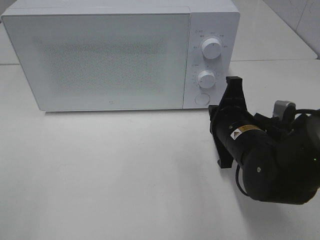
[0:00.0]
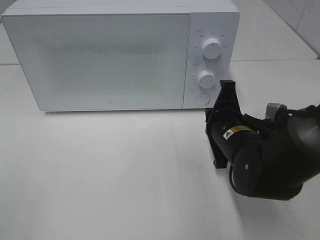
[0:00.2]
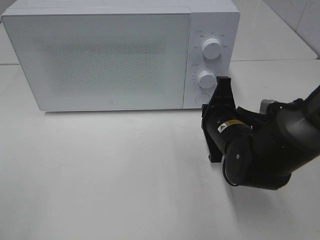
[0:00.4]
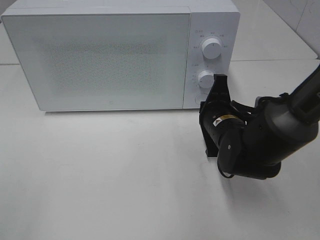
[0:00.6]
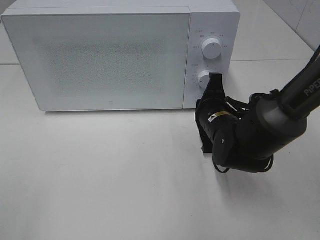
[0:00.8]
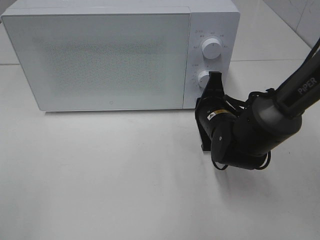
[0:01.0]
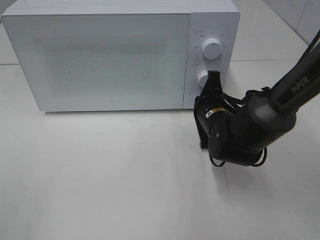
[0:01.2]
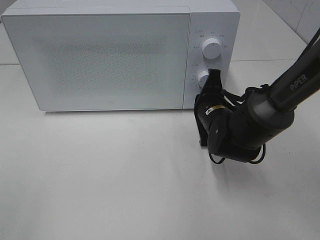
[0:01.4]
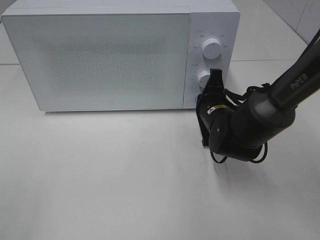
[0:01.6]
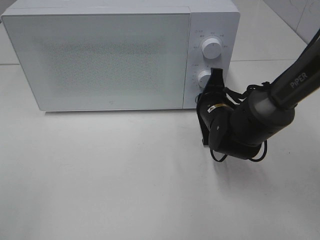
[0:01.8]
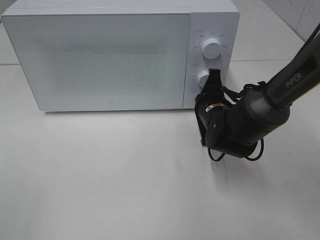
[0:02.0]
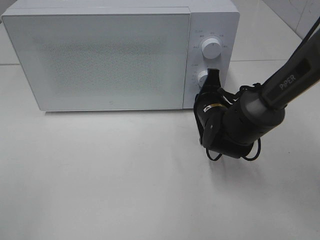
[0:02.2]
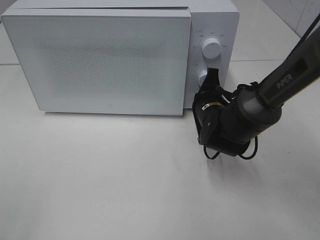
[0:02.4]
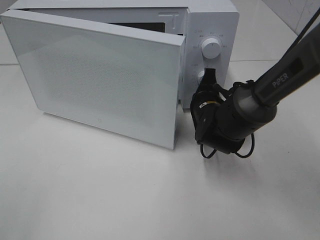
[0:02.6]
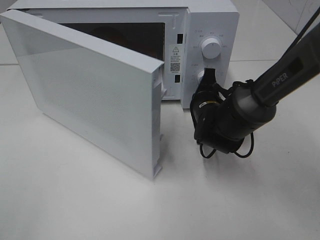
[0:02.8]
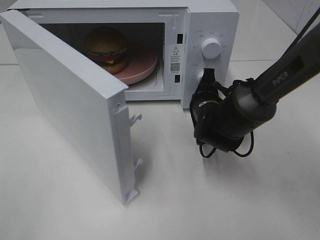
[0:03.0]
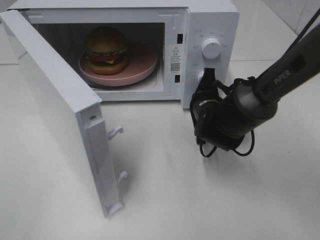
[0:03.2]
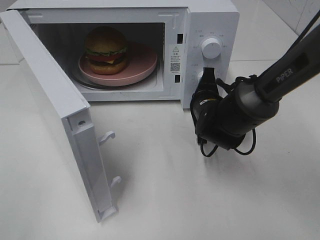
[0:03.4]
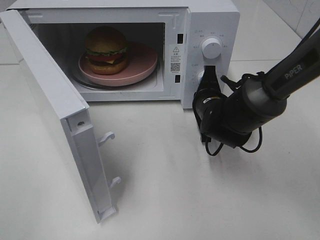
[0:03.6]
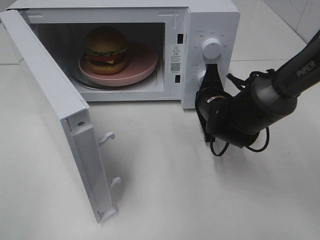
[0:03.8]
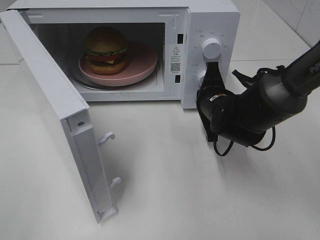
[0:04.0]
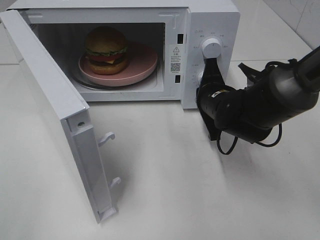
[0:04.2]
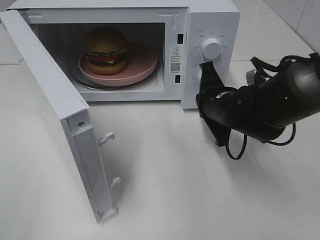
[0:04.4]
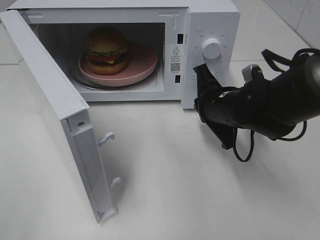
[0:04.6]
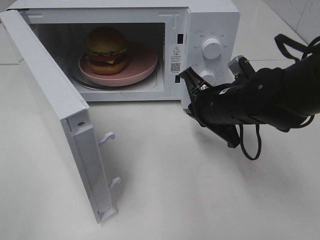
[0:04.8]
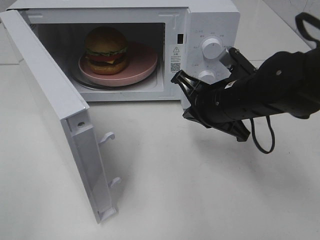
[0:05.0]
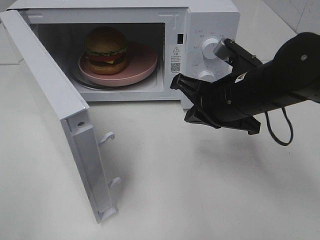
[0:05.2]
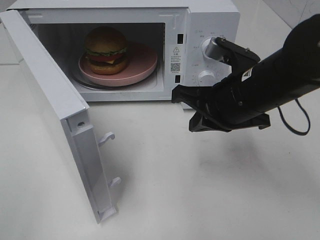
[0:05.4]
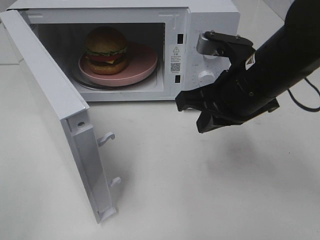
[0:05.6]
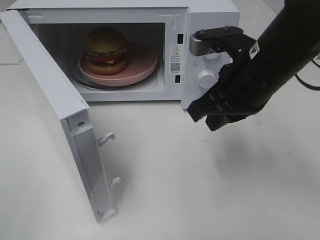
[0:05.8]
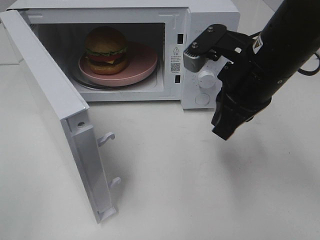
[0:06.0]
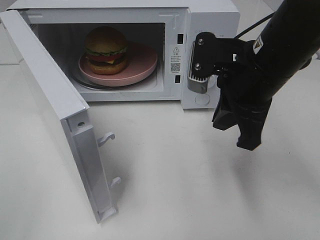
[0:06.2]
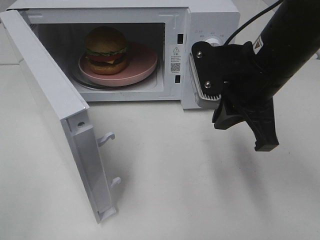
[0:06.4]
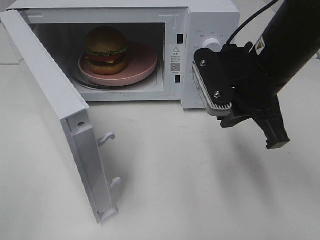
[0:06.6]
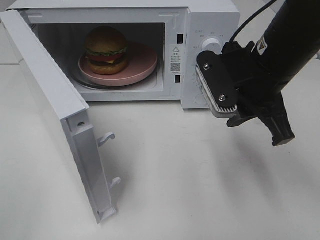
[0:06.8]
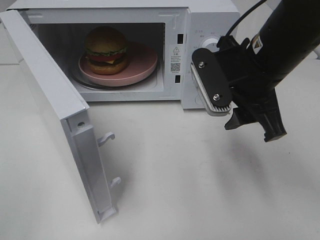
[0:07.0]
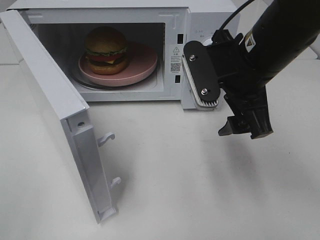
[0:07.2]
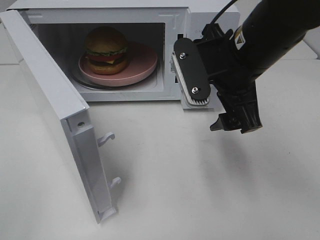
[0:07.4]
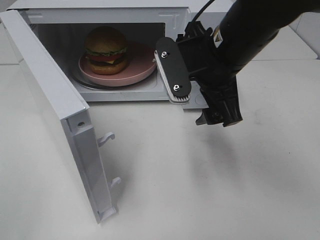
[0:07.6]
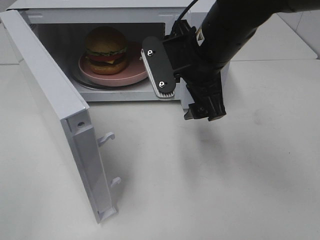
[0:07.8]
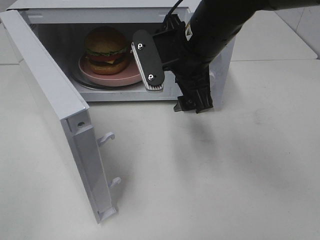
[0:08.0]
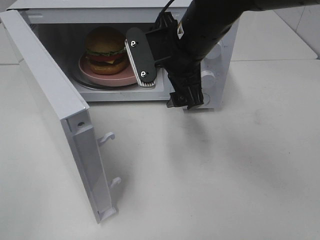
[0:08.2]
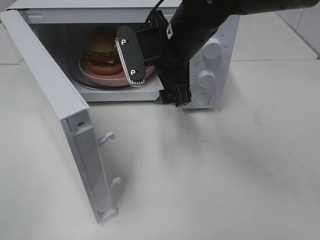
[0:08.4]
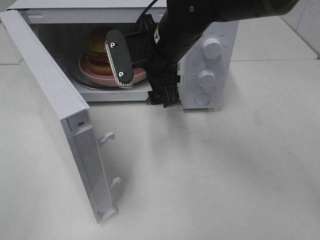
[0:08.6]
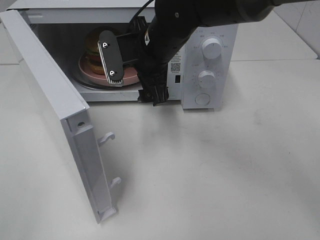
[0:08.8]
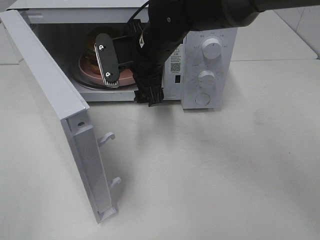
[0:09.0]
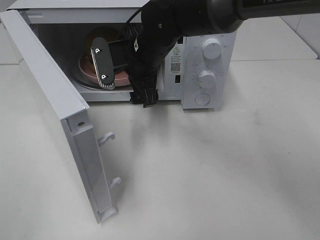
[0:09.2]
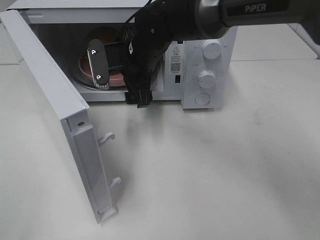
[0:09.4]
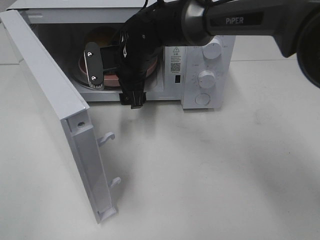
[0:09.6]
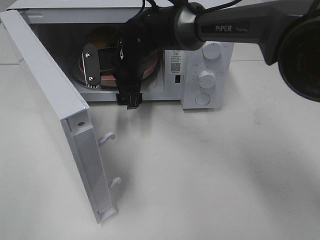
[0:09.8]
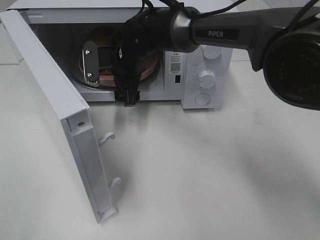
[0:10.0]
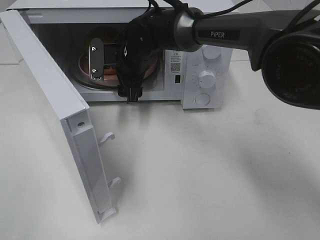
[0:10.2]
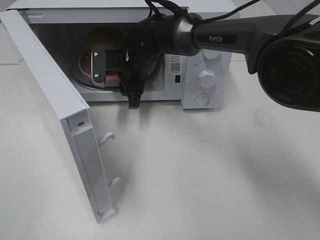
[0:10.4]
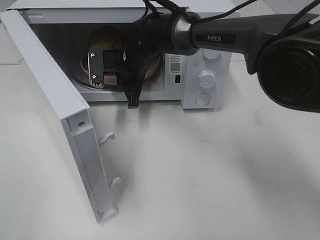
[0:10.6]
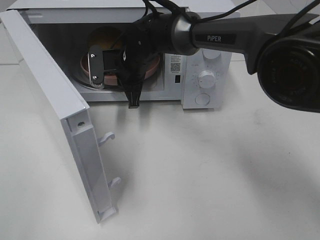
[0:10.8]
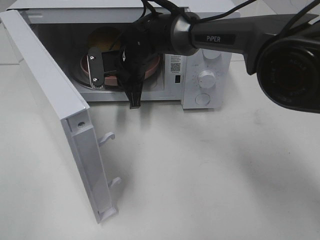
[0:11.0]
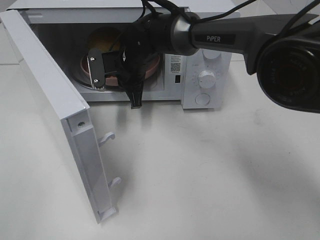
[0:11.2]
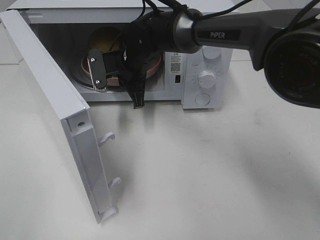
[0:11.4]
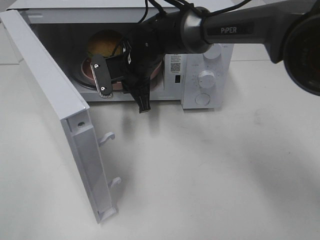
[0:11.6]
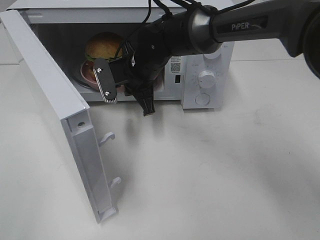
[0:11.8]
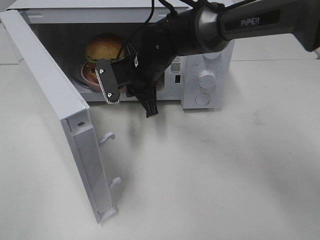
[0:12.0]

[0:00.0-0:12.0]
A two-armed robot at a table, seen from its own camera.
Task of the whole recording: Heat the burger.
Step, 0:00.0 to 0:04.0: Right hand: press the switch.
Step, 0:04.2 to 0:10.8: Right hand: grab the plate with the hamburger.
0:00.0 to 0:01.6: The right gripper moves forward, some 10 cm.
0:03.0 to 0:04.4: The right gripper ends up approximately 5 cm from where it was.
0:04.4 to 0:06.0: The right gripper travels upward and backward by some 15 cm.
0:06.0 to 0:07.6: The right gripper ends up approximately 5 cm from where it was, and opens.
0:07.6 to 0:09.0: The right gripper heads to the left and forward, covering some 15 cm.
0:09.0 to 0:10.4: The right gripper is displaced forward and downward by some 10 cm, and closes.
0:10.4 to 0:12.0: The right gripper shifts by some 5 cm.

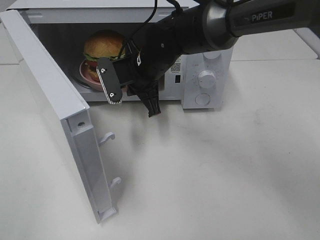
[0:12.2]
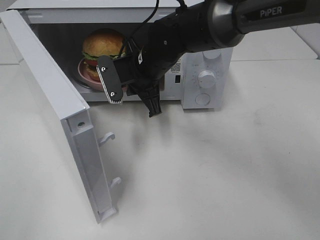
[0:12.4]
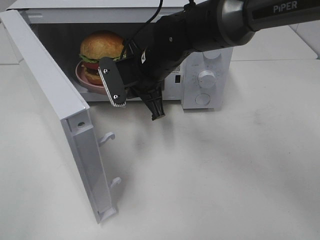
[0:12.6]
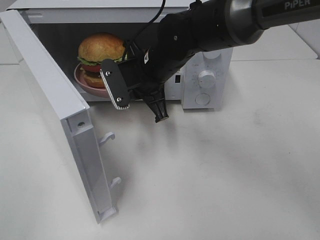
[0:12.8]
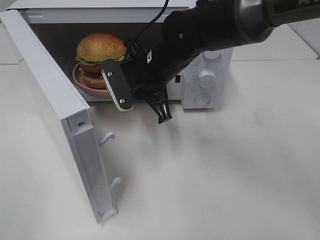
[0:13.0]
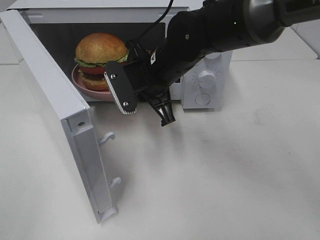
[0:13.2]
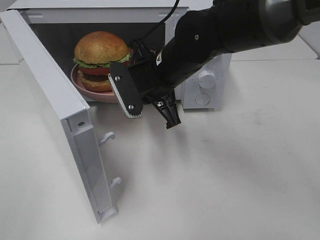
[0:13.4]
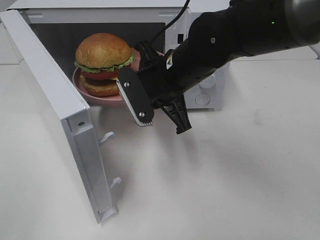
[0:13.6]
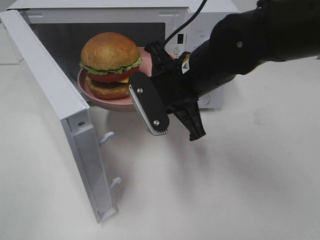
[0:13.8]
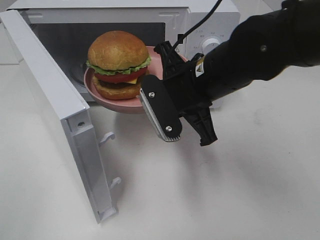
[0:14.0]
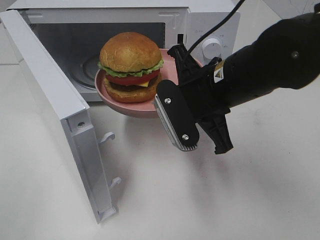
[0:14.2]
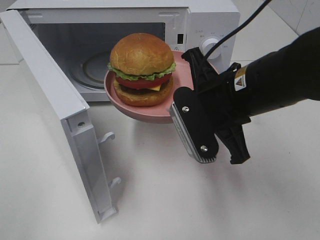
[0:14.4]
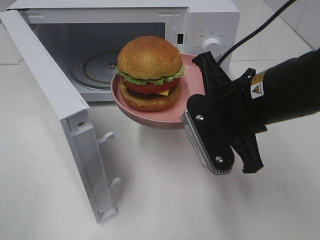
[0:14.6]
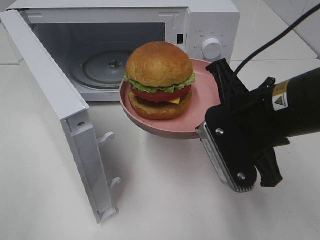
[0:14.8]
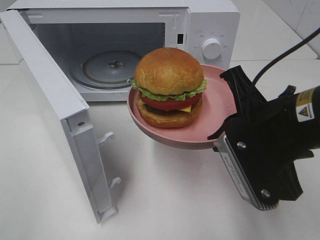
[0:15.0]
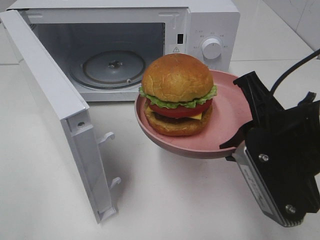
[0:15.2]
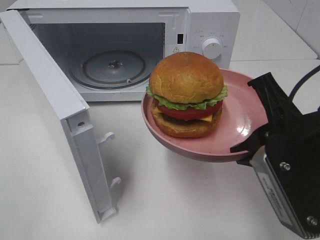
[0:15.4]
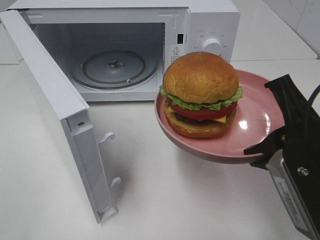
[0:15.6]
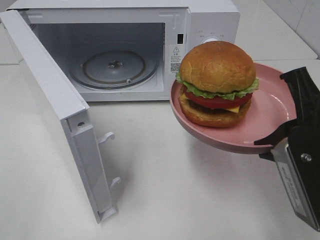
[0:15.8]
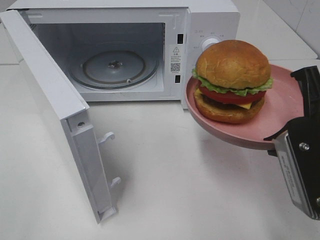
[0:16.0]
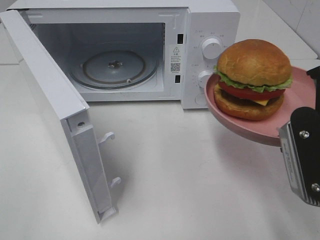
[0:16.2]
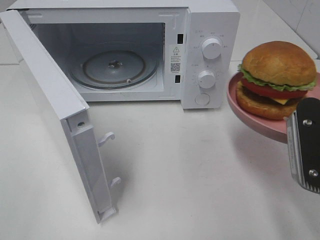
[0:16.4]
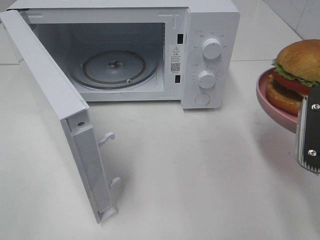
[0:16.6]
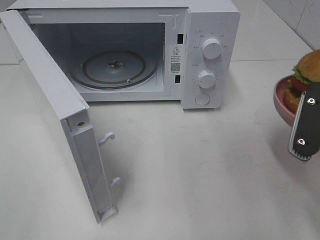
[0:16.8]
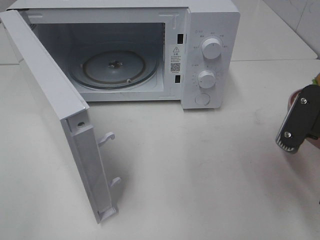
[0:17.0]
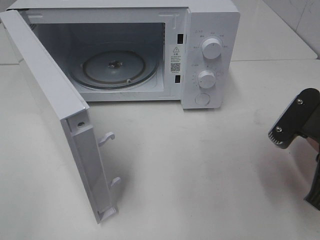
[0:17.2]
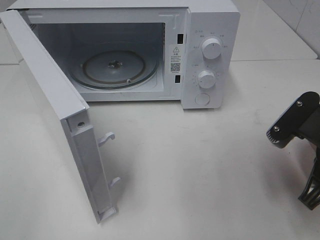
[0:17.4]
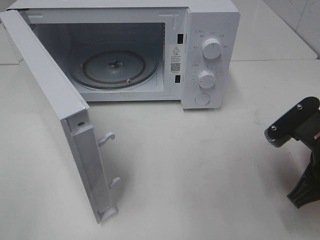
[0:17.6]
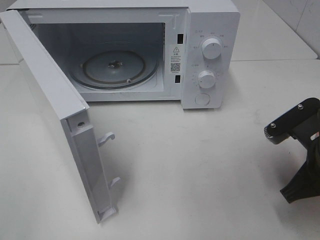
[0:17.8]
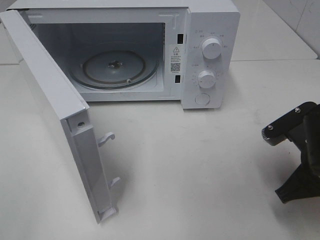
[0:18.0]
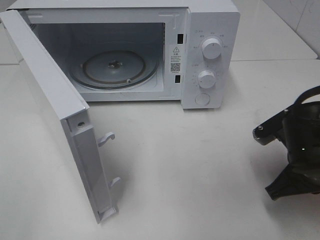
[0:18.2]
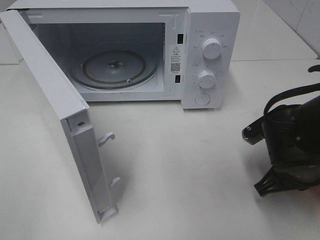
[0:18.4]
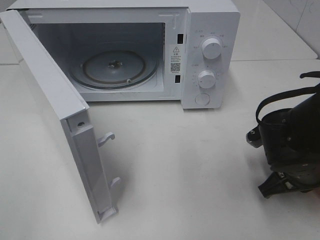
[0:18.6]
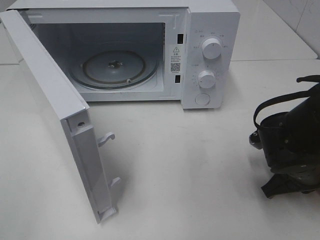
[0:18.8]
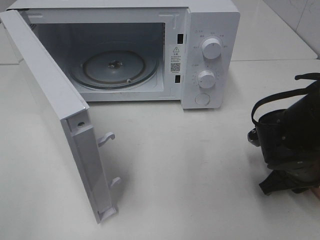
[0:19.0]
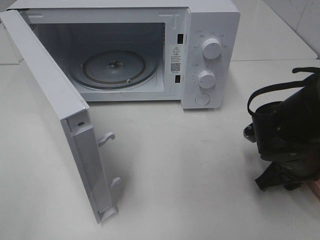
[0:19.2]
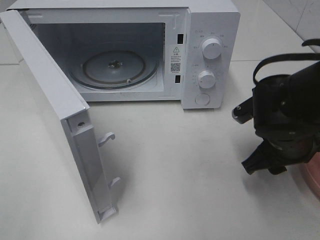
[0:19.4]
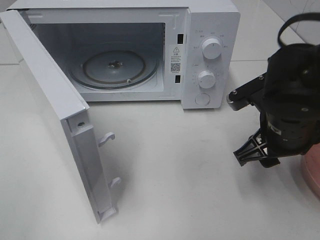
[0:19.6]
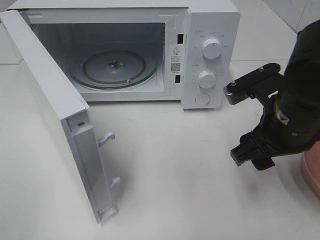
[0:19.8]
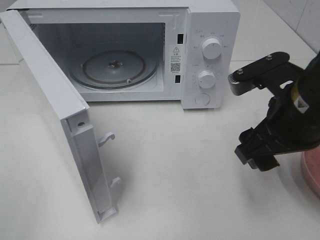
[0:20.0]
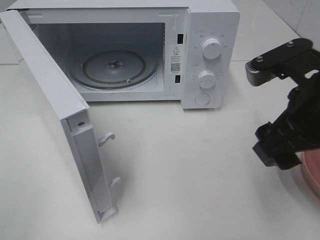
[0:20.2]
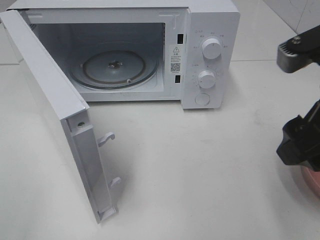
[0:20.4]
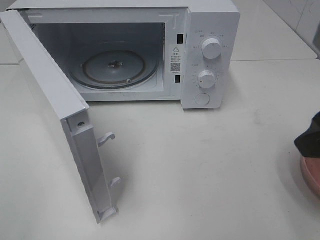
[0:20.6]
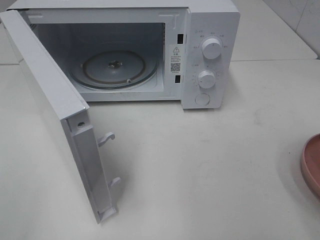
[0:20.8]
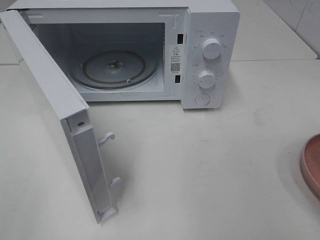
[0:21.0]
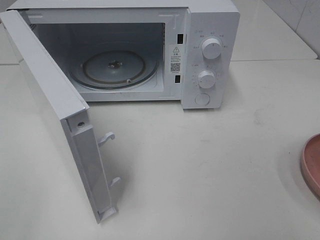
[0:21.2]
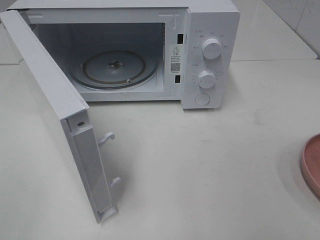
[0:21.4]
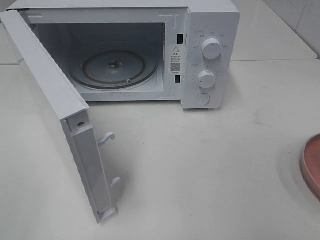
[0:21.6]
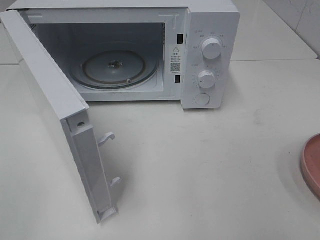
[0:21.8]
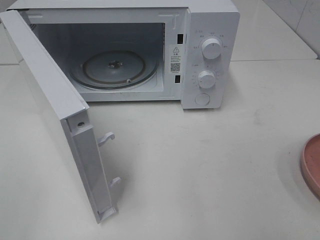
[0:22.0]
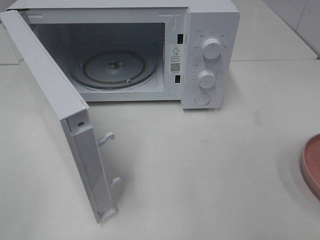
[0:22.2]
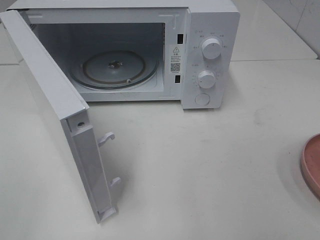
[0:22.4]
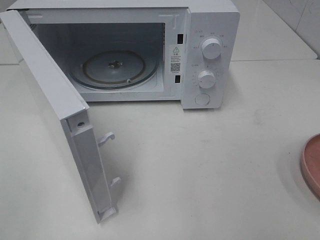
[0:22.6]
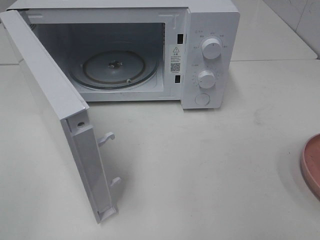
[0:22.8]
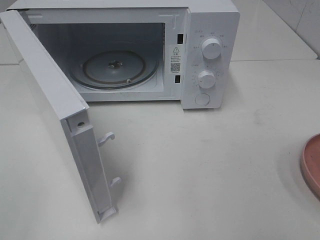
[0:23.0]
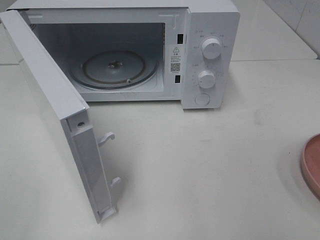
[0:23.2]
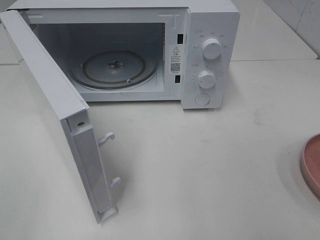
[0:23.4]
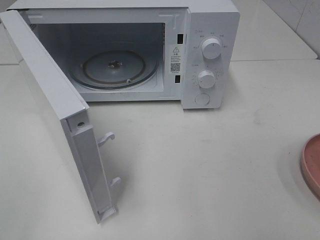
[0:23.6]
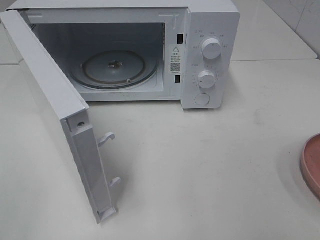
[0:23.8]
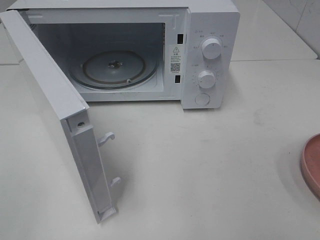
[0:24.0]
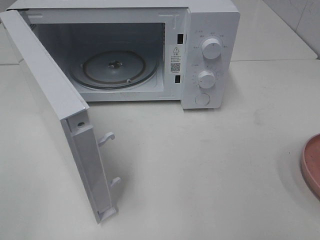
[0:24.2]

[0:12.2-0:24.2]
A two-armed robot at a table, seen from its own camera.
Task of the whole recording: Heat the burger.
Step, 0:12.2 to 0:19.2: Right hand: place the plate on the table.
0:12.2 to 0:13.8: The right gripper moves backward and to the right, approximately 10 cm.
0:13.8 to 0:15.2: The right gripper is displaced backward and to the right by about 15 cm.
0:15.2 to 0:16.6: The right gripper is displaced to the right by some 5 cm.
0:16.6 to 0:18.2: The right gripper goes some 10 cm downward and forward.
0:18.2 to 0:19.8: The right gripper heads upward, covering about 5 cm, and opens its fingers.
0:19.8 to 0:21.2: The right gripper heads backward, to the right and upward, covering some 20 cm.
0:22.6 to 0:24.2: Both grippers stay about where they are.
